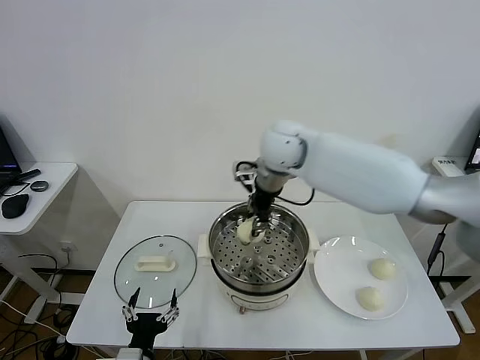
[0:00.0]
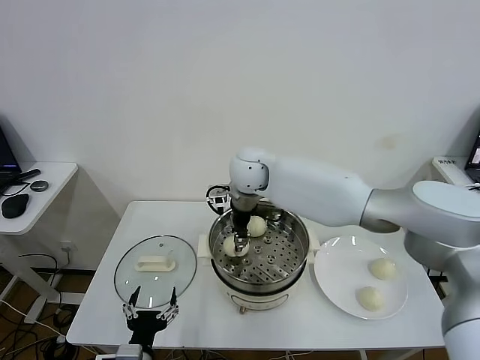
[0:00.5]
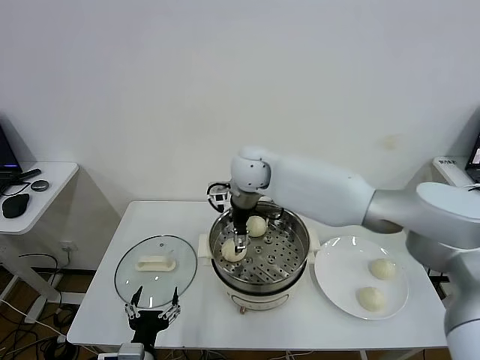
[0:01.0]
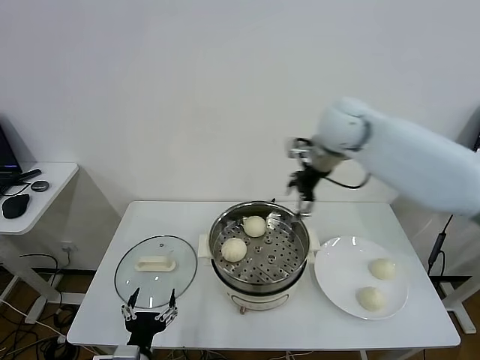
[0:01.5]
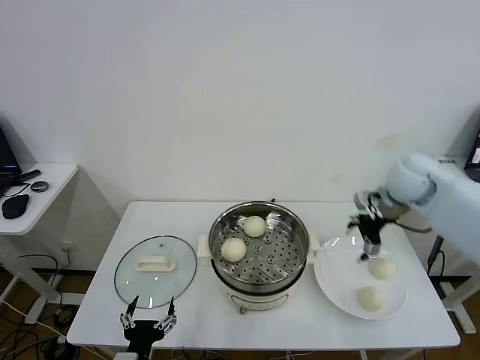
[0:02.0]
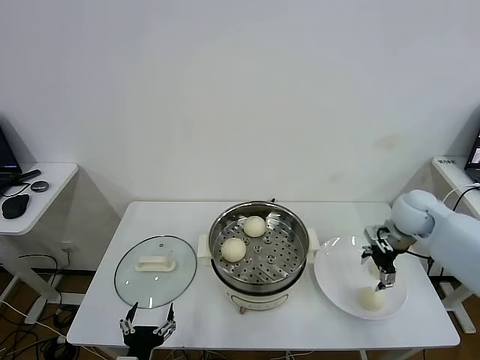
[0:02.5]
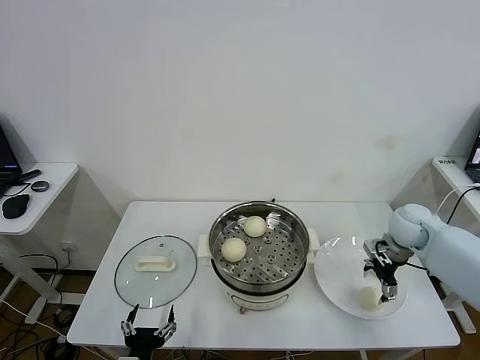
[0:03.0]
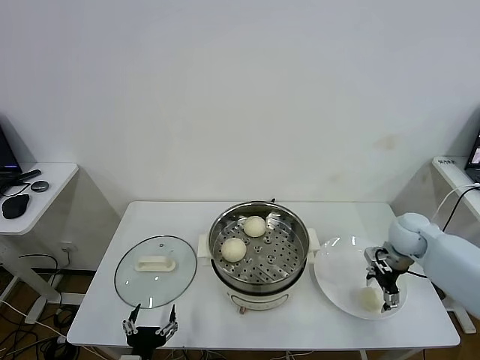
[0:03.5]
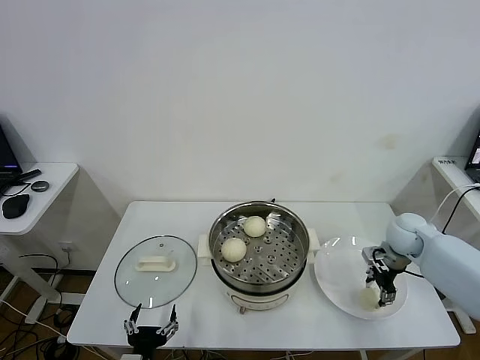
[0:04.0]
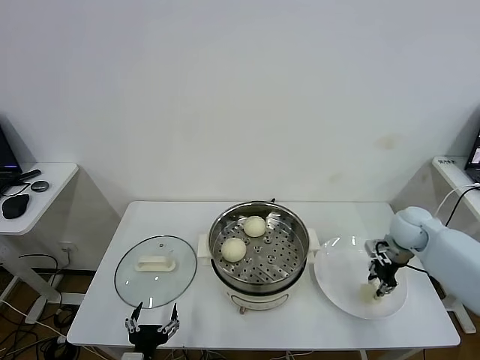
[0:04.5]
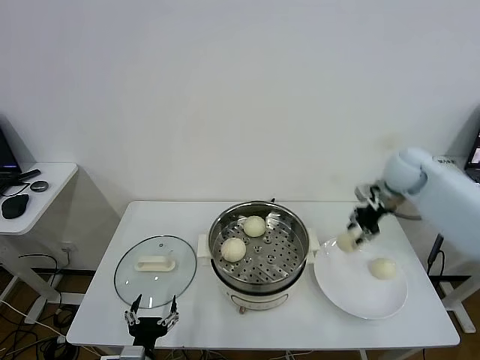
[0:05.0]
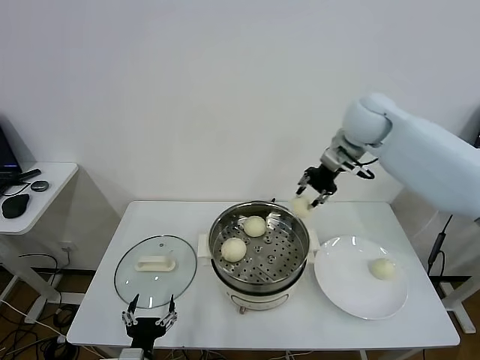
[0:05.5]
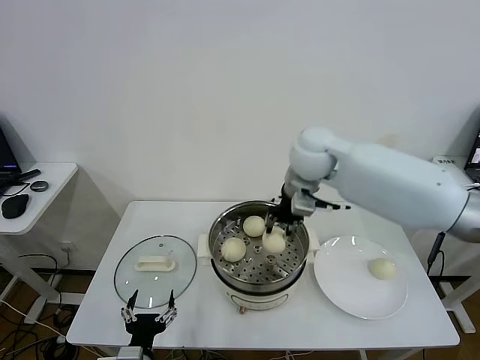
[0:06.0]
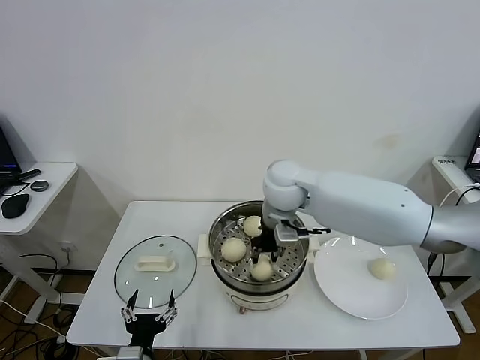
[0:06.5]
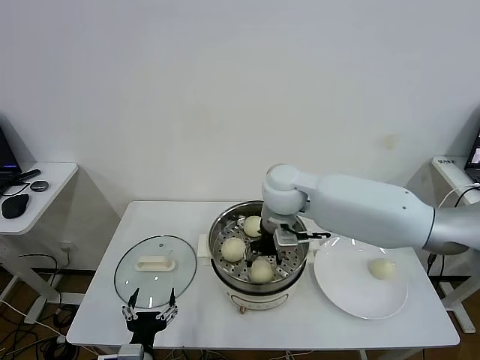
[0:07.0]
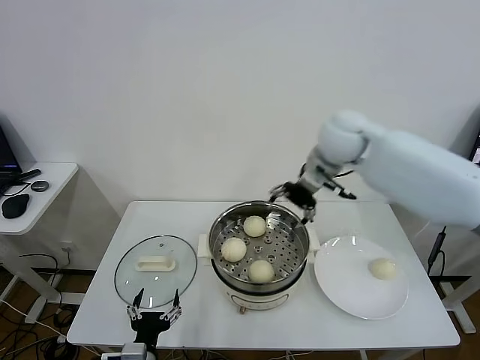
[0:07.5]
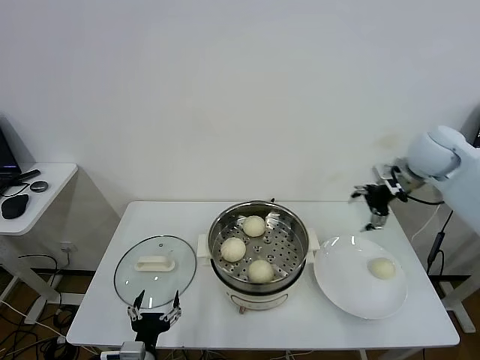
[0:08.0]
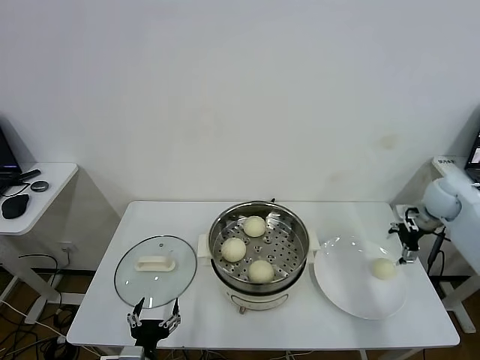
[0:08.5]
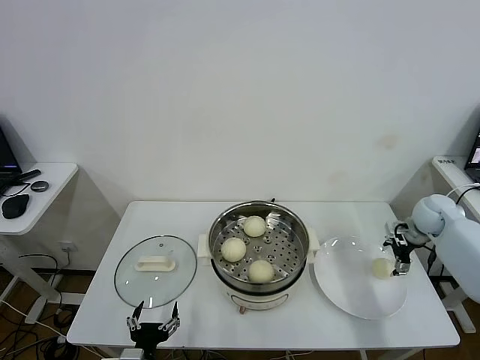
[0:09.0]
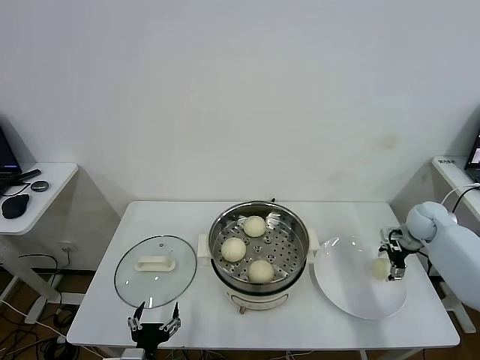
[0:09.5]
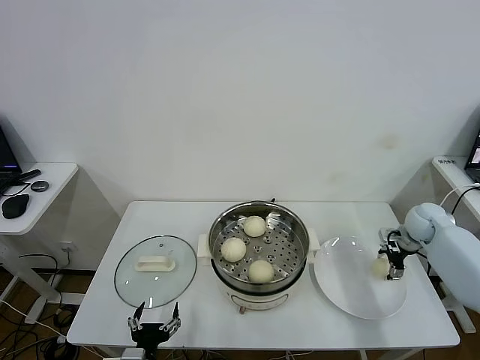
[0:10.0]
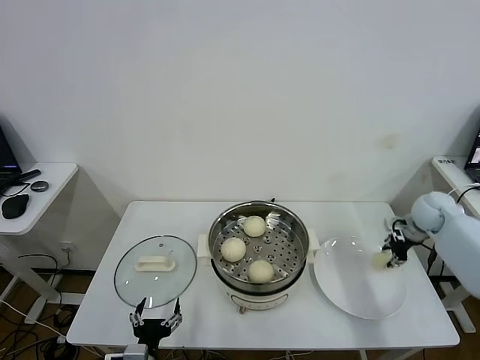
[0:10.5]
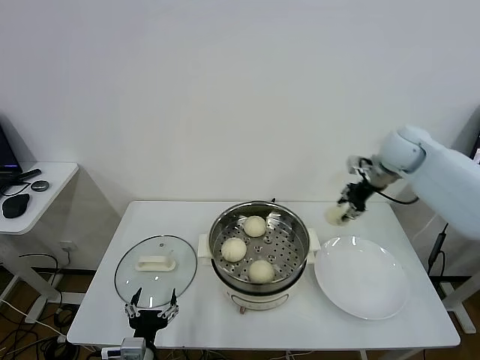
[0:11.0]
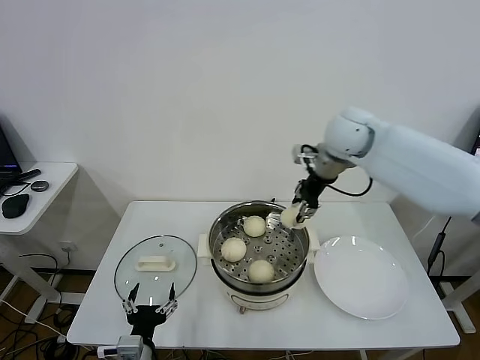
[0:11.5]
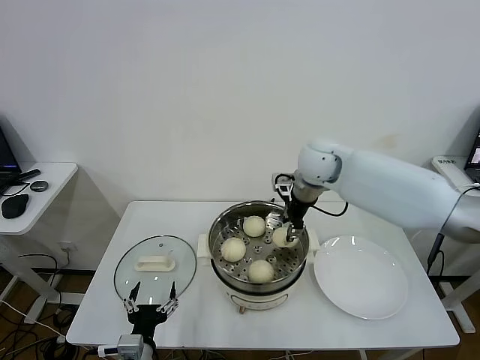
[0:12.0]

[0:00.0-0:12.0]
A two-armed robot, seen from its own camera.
Task of the whole recording: take steamed baozi put them in steamer.
Step, 0:01.0 to 0:04.0: Grasp the baozi in the plate with right gripper.
Step, 0:04.5 to 0:07.0: Place the baozi on the steamer with right gripper.
Step, 0:07.5 to 0:10.0: Grasp the baozi in the plate with right gripper.
0:00.0 to 0:02.0: The right gripper heads to the right, covering about 30 cm, and opens its fingers.
0:02.0 to 0:04.0: The right gripper shifts approximately 15 cm downward, and closes up.
0:04.0 to 0:06.0: The right gripper heads to the left and upward, covering some 35 cm, and closes up.
0:06.0 to 0:08.0: The right gripper travels to the right by about 25 cm, and opens up.
0:08.0 to 0:10.0: The right gripper travels downward and to the right by about 25 cm.
0:10.0 to 0:12.0: The right gripper is displaced to the left and upward by roughly 35 cm, and closes its fingers.

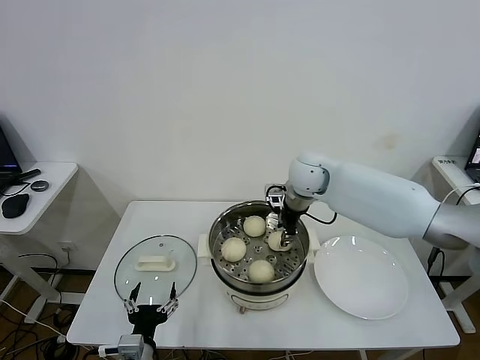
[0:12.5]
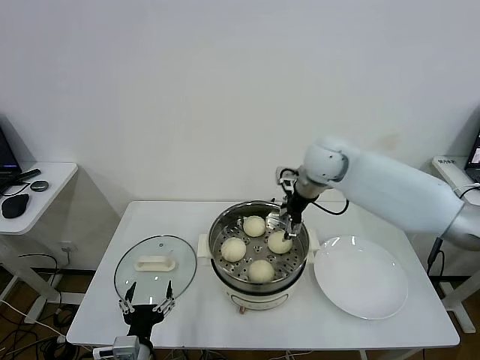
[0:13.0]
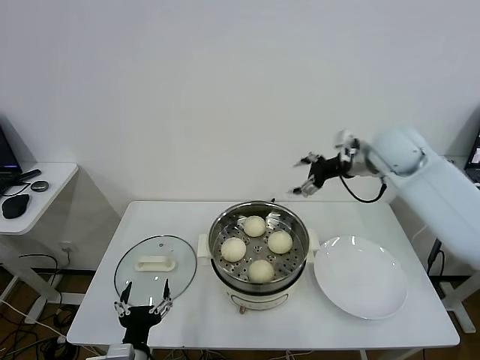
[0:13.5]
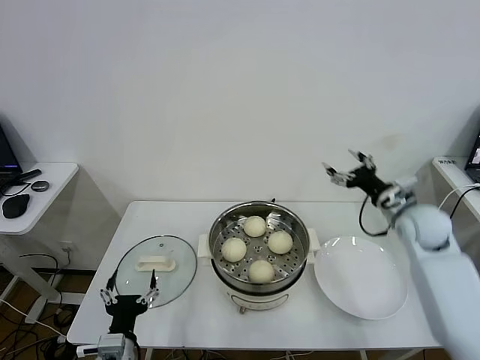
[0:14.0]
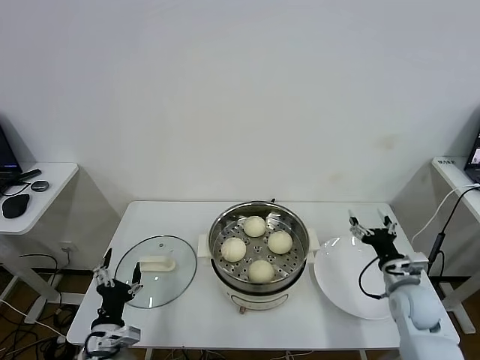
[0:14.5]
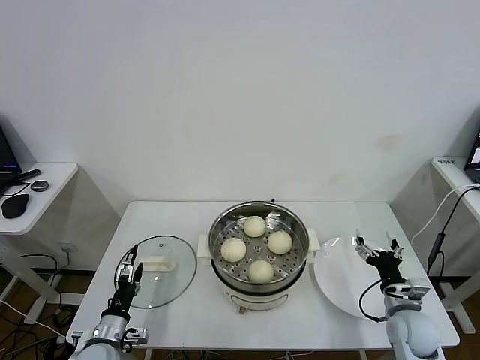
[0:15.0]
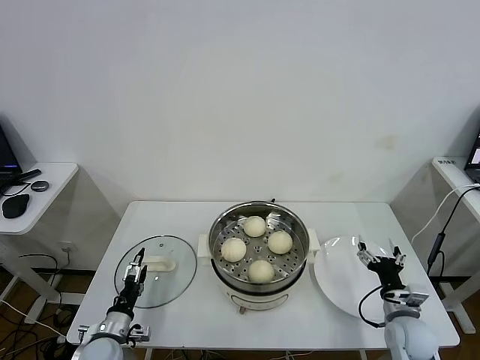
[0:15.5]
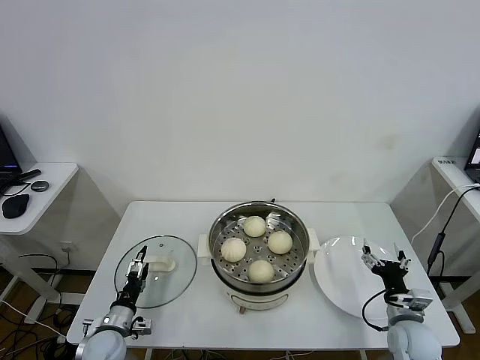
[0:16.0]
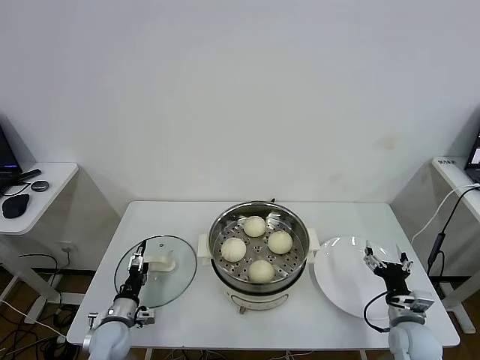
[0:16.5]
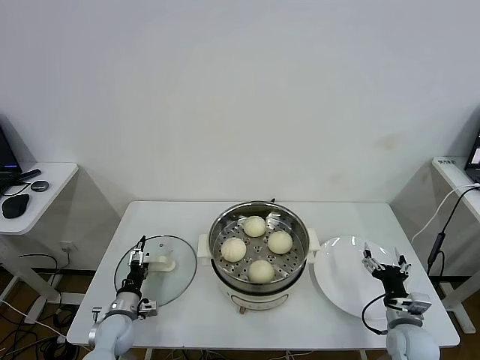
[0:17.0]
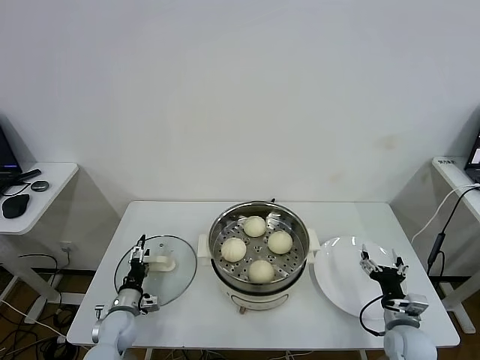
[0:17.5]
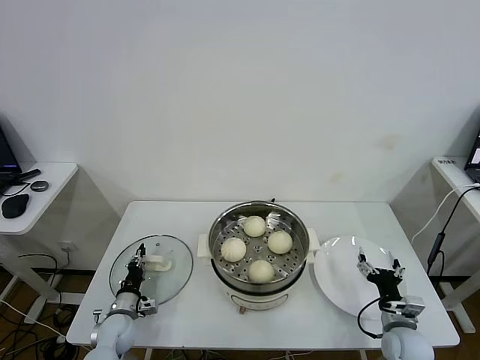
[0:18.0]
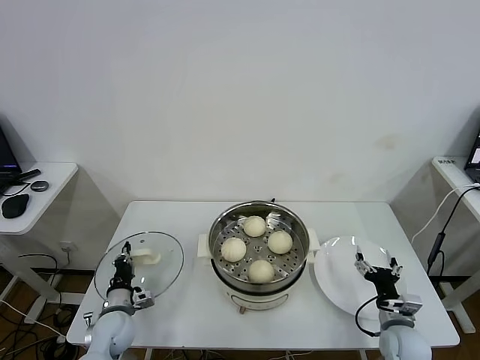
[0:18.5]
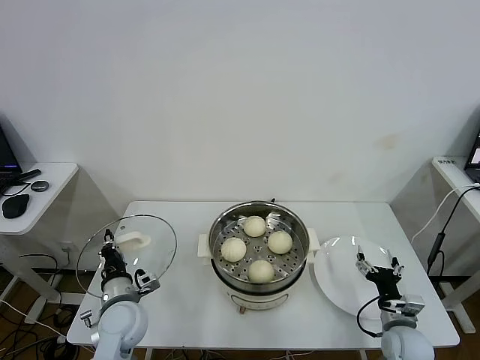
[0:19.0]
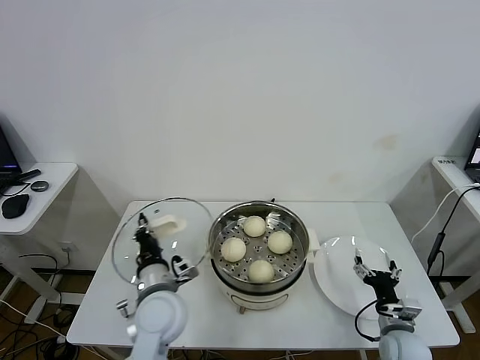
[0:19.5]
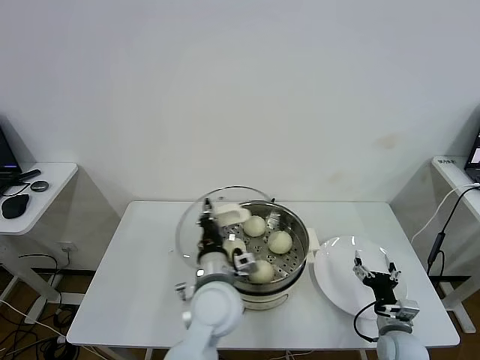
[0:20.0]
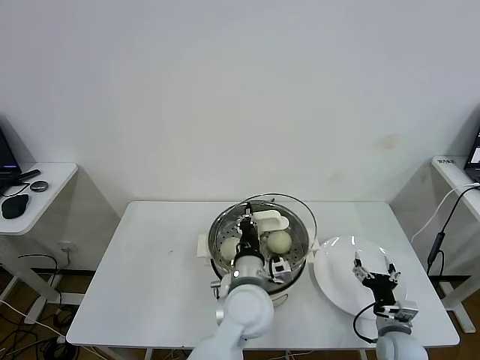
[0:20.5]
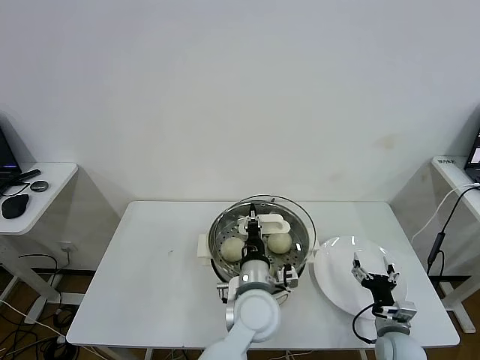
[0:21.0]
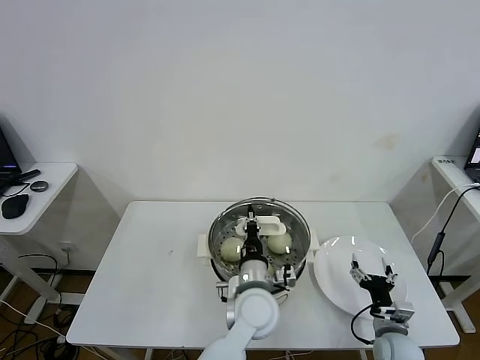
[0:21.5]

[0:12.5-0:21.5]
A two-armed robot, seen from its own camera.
Task of the whole recording: take steamed baozi put them in steamer.
Step, 0:13.5 to 0:18.0: Grasp the pot lid with left gripper.
0:12.5 to 0:14.5: The left gripper shifts approximately 5 cm to the left. The right gripper travels to the right, backward and downward by some 35 cm, and opens its fingers.
0:14.5 to 0:17.0: The left gripper is displaced forward and downward by some 15 cm, while the right gripper shifts roughly 10 cm backward and downward.
0:17.0 to 0:19.5: The left gripper goes some 25 cm upward and to the right, and closes.
0:19.5 to 0:21.5: The left gripper moves to the right, about 20 cm.

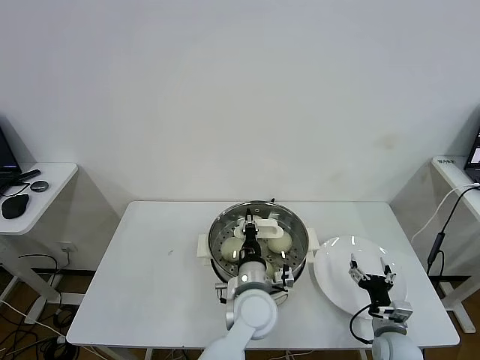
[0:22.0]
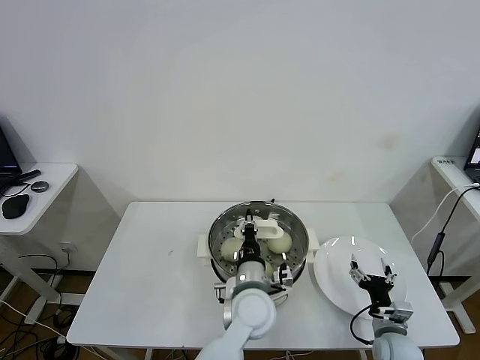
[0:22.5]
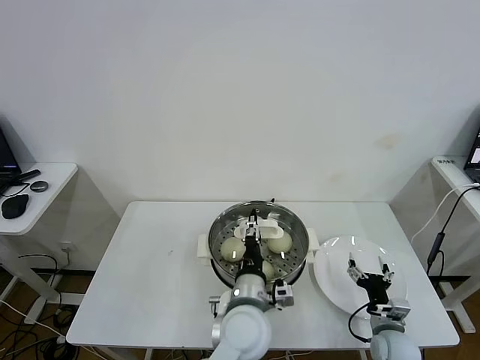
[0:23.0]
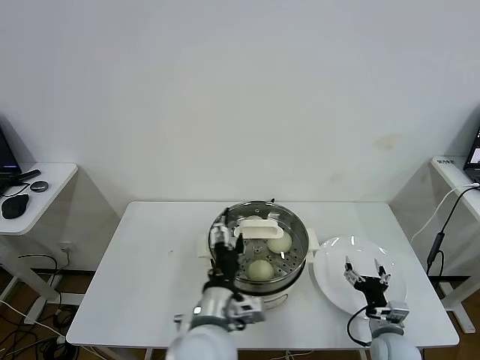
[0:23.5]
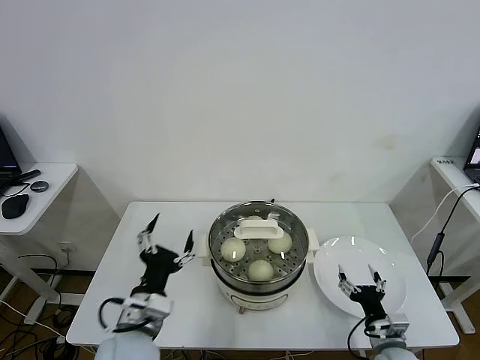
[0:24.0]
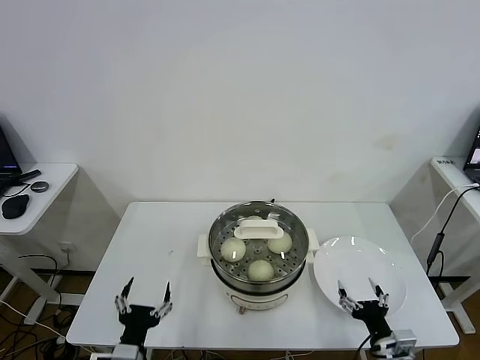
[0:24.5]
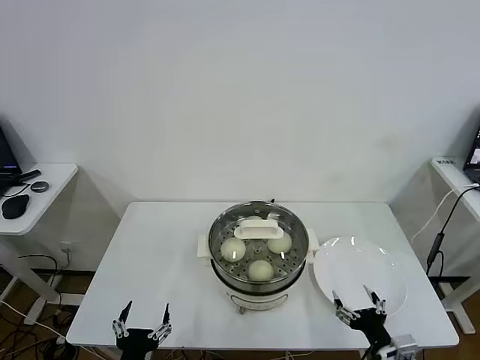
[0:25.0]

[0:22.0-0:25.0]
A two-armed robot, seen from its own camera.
Task of the whole recording: take steamed baozi put them in steamer.
0:22.0 to 0:23.5: The left gripper is displaced backward, to the left and upward by some 15 cm, and opens up.
0:23.5 to 0:25.0: The right gripper heads backward and upward, covering some 10 cm. Meanwhile the left gripper travels to the left, downward and backward by roughly 25 cm.
